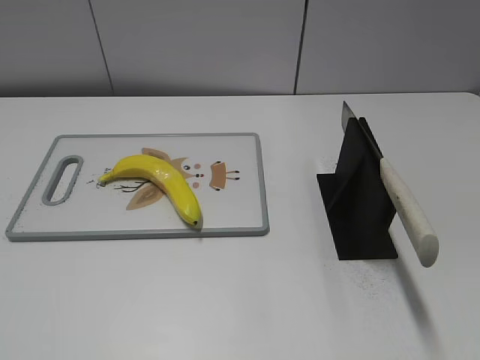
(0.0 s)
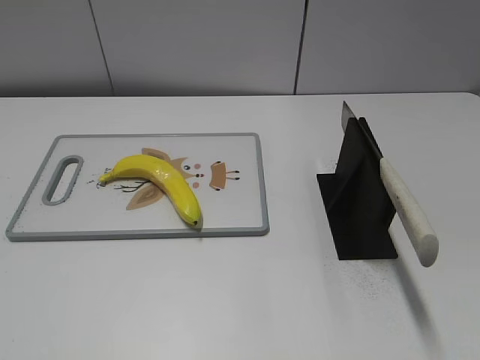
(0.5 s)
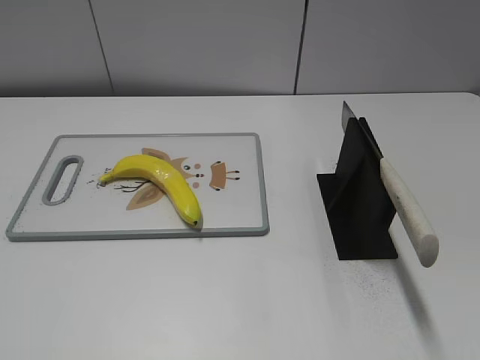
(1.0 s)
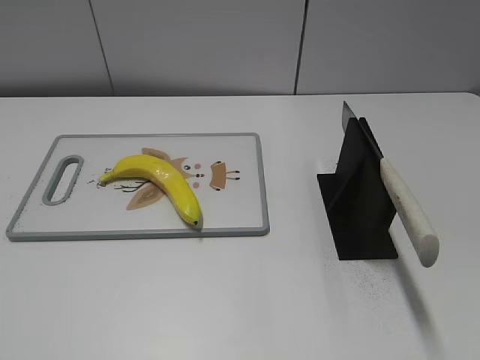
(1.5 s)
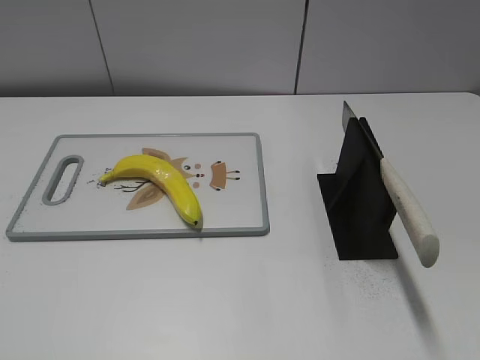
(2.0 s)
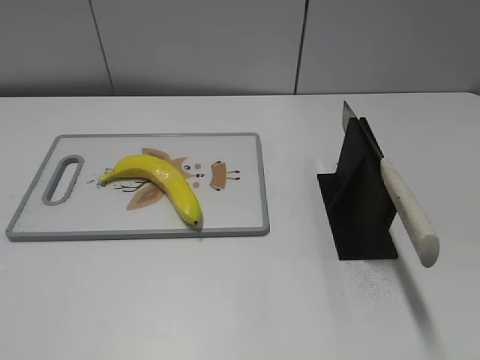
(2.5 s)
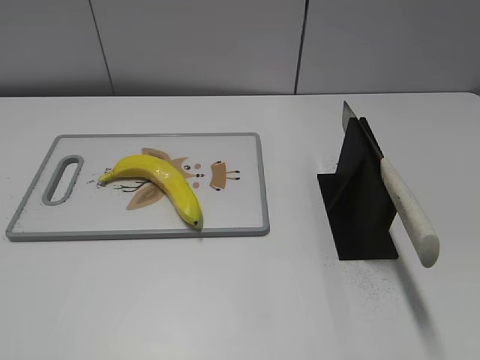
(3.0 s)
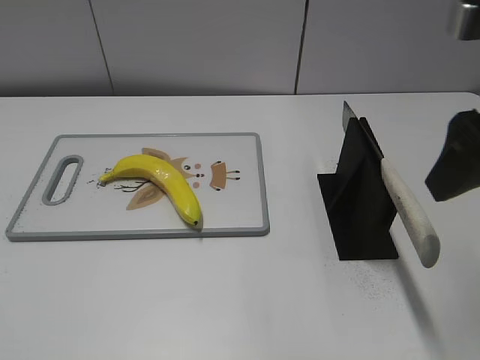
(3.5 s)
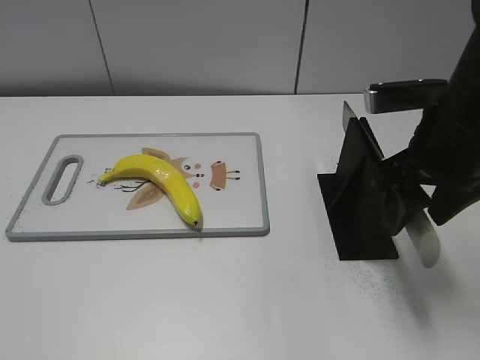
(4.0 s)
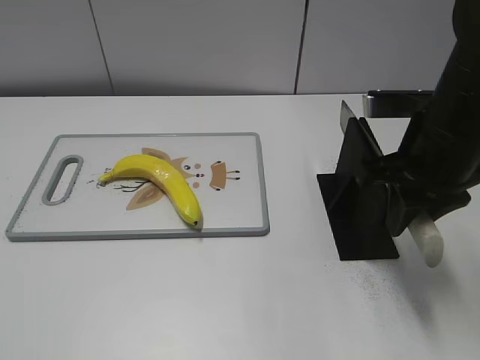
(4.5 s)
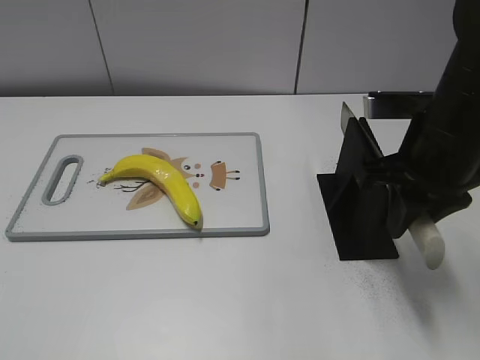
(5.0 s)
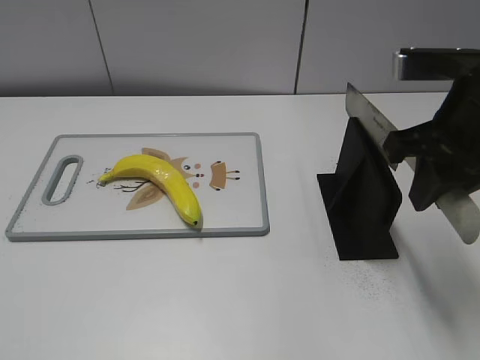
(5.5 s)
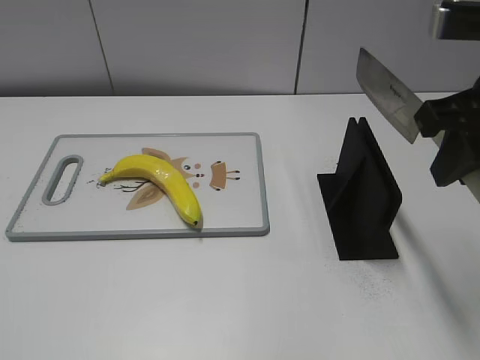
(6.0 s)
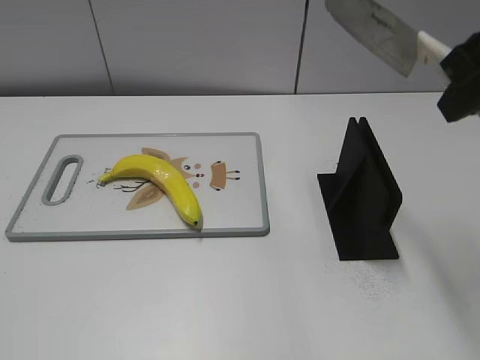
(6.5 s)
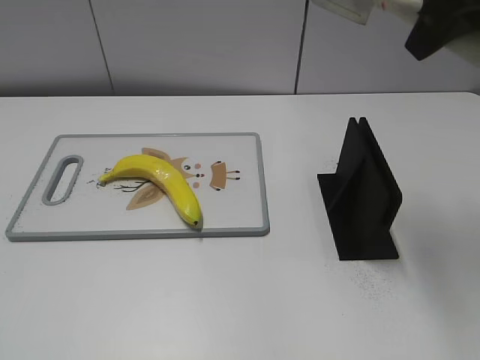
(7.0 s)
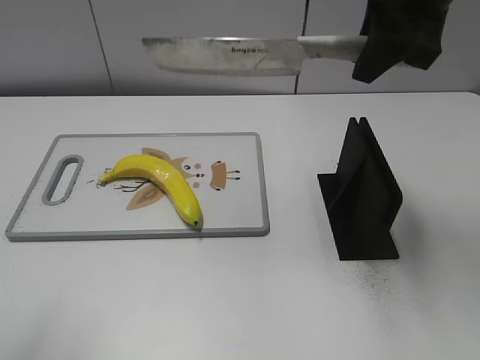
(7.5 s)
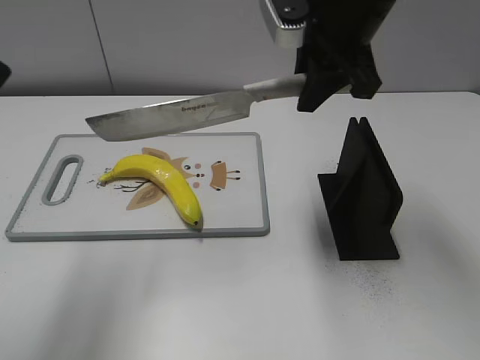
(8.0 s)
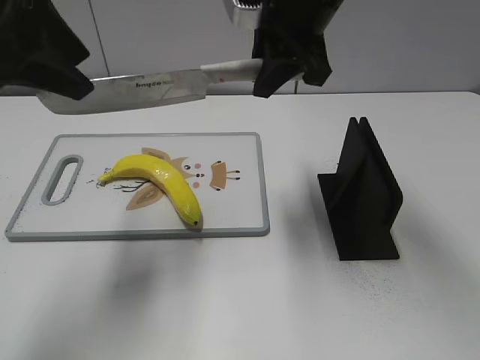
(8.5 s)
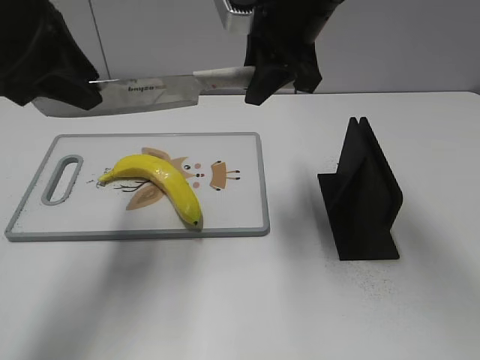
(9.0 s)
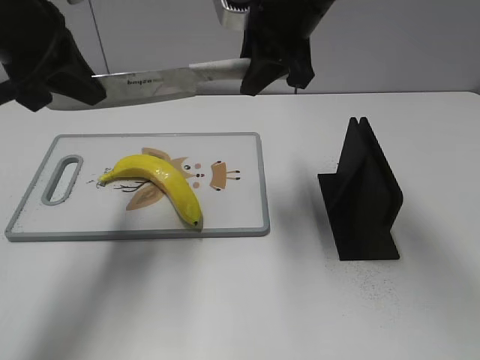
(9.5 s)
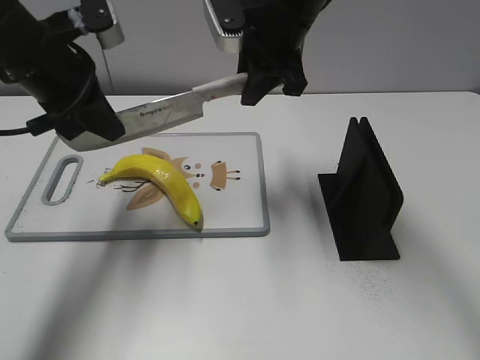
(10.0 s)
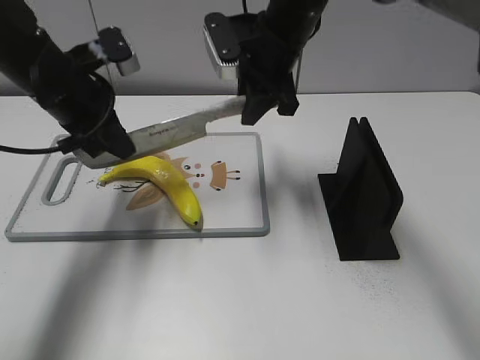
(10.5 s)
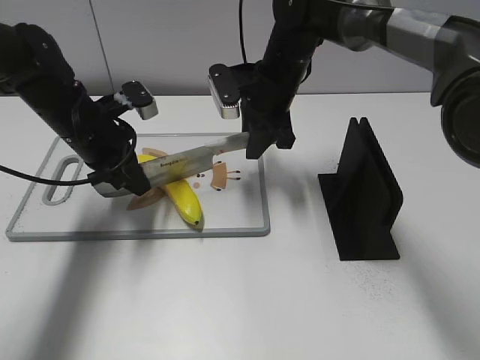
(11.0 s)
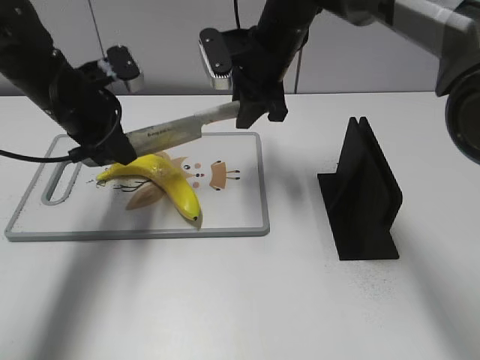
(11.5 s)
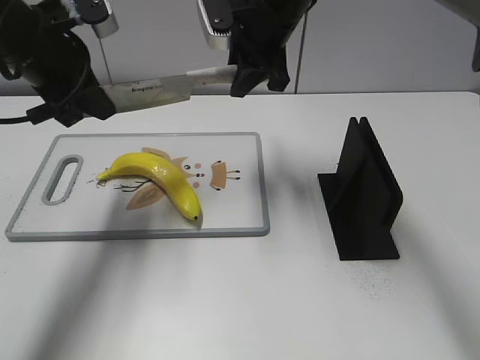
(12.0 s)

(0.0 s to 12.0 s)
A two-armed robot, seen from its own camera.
Task of the whole recording: cut plastic banana.
Step, 0.0 s - 5.5 s: Grab the knife handle with your right hand.
Step, 6.0 s - 11.0 s: Lift the knife with your right hand.
2.0 s - 4.0 s: The right gripper is displaced forward and to the left by some 30 cm.
4.0 s - 6.0 s: The right gripper moves upward, about 5 cm, and closes its fingers.
6.0 s - 8.0 s: The left gripper shifts roughly 25 cm forward and upward; the right gripper travels forward and to the left by about 15 cm.
8.0 s - 10.0 s: The right gripper heads forward, covering roughly 5 cm; the left gripper travels forward, downward and to the right by approximately 20 cm, and closes its fingers.
10.0 s - 12.0 s: The left gripper travels downward and back again, roughly 10 cm each way. The right gripper reaches approximately 10 cm downward, then returns.

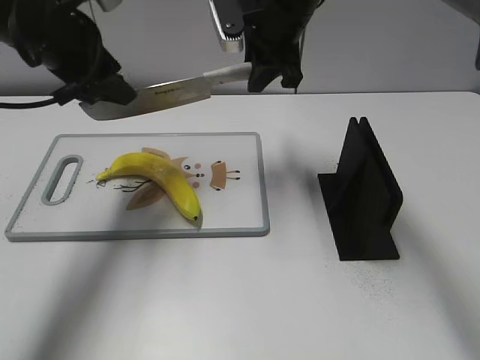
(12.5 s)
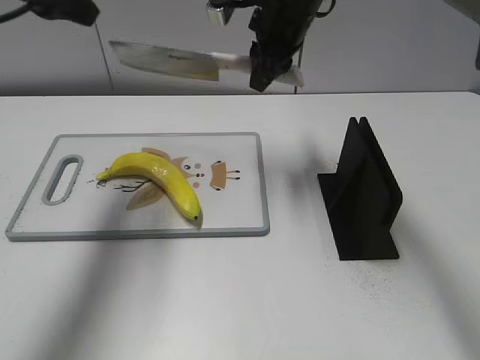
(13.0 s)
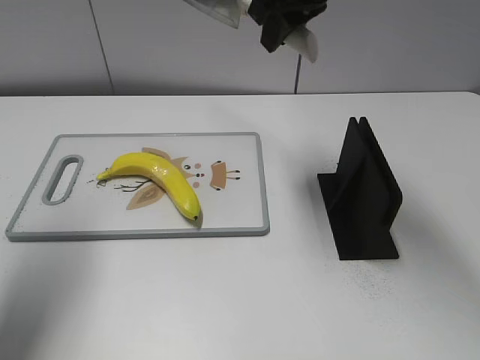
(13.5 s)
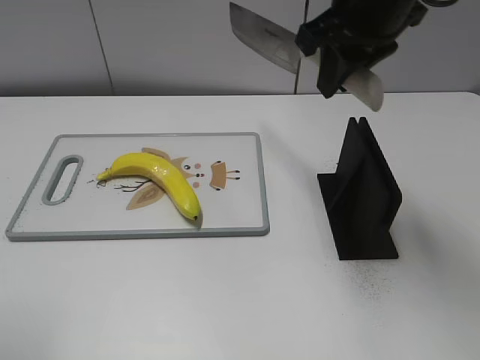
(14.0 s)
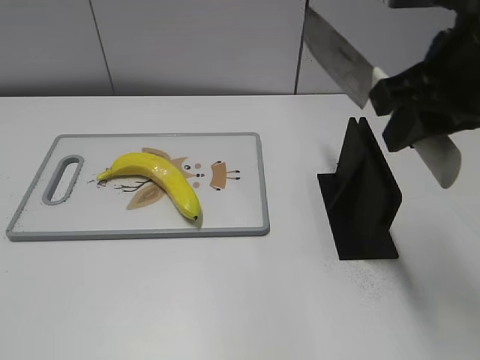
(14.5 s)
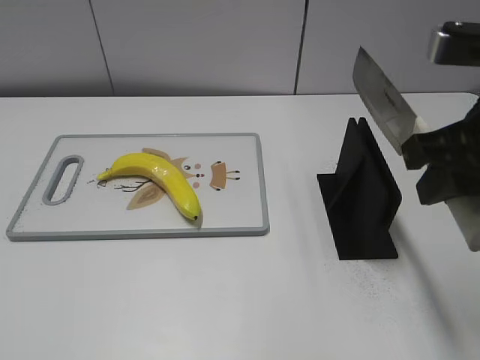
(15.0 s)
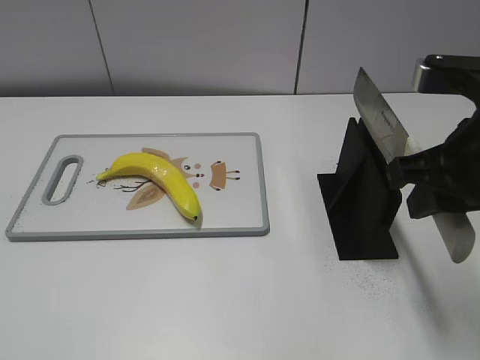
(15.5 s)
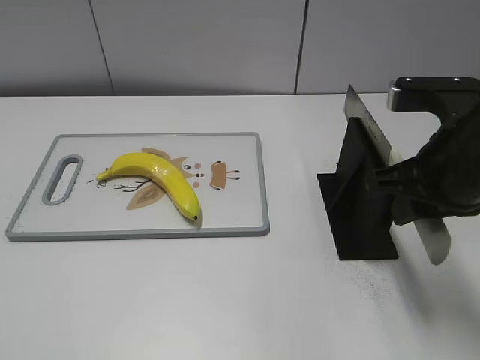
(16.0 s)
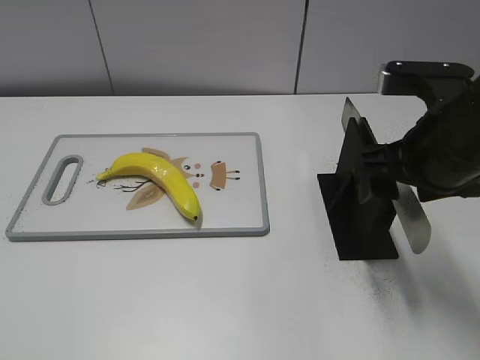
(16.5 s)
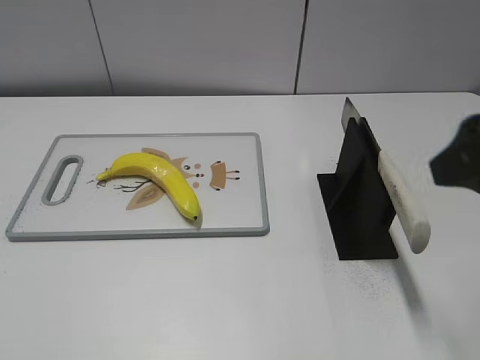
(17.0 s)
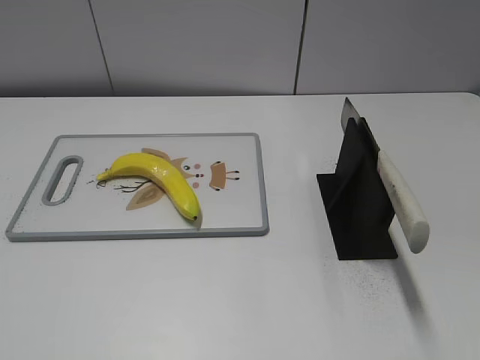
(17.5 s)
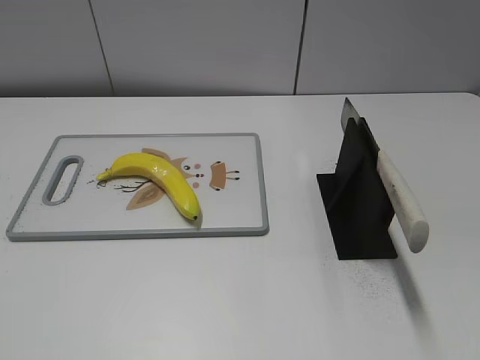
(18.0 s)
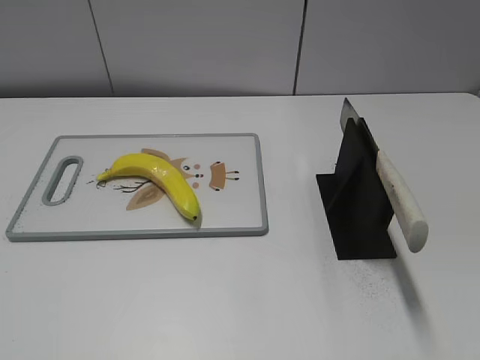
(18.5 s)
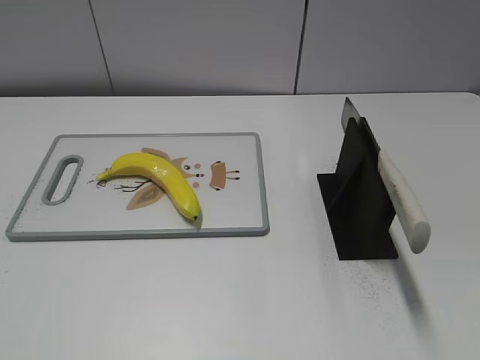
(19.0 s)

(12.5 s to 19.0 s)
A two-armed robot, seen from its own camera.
Task of the whole recording: cut plastic banana.
Step, 13.5 s - 15.0 s: Lift the knife with your right hand.
Step, 15.5 s - 19.0 s: Place the knife on the storage rack with your right hand.
12.5 s - 14.5 s: The right gripper travels backward and to the right by approximately 25 cm, while the left gripper is displaced backward by some 35 cm.
14.5 s - 17.0 s: The right gripper is displaced backward by about 5 cm, travels downward and back again, some 10 cm each way, and opens up.
17.0 s - 19.0 s: The right gripper goes roughly 20 cm backward and to the right.
